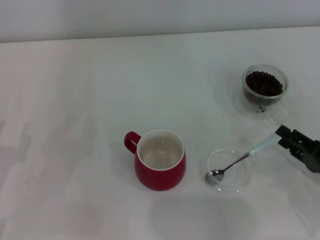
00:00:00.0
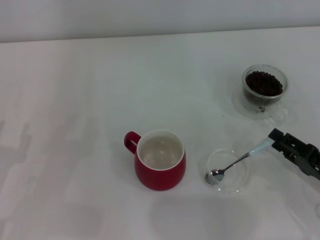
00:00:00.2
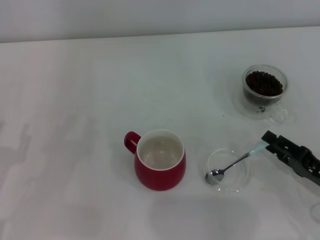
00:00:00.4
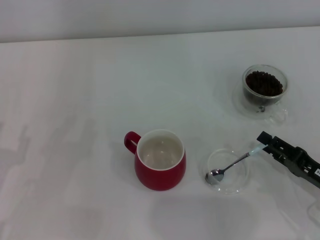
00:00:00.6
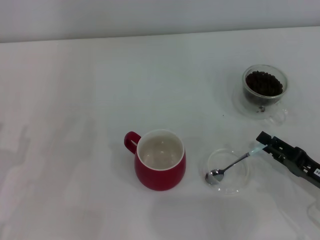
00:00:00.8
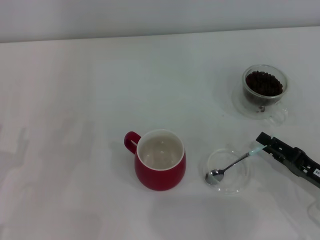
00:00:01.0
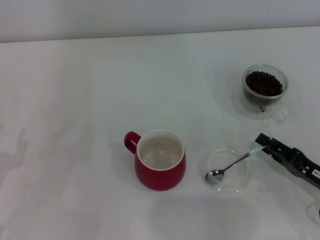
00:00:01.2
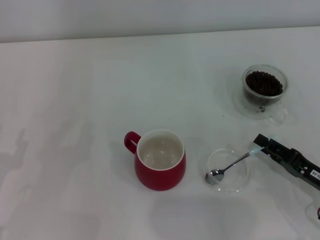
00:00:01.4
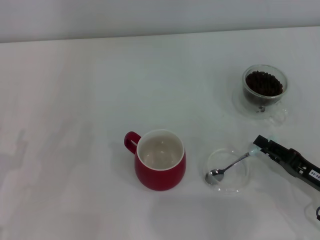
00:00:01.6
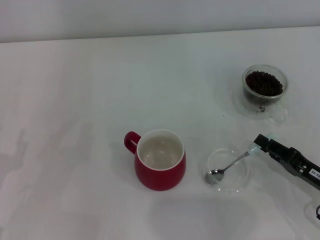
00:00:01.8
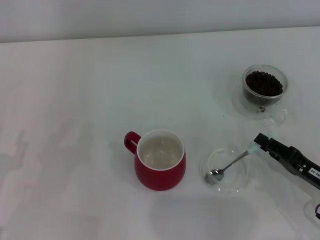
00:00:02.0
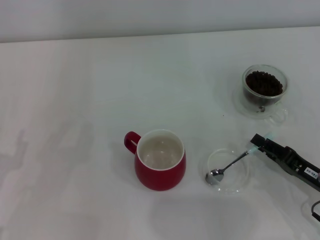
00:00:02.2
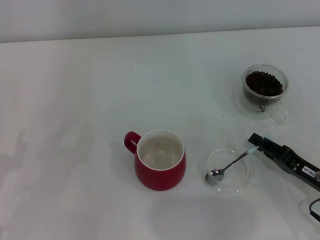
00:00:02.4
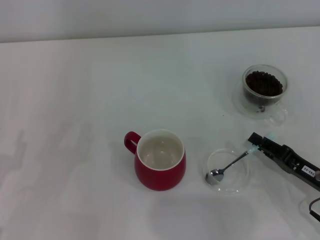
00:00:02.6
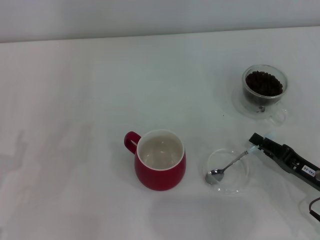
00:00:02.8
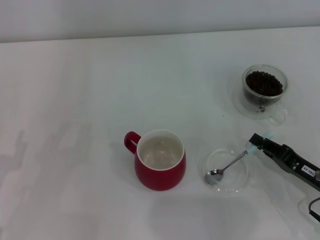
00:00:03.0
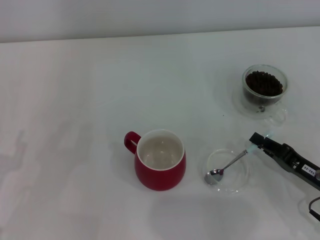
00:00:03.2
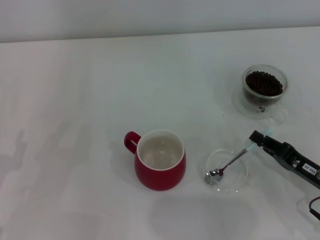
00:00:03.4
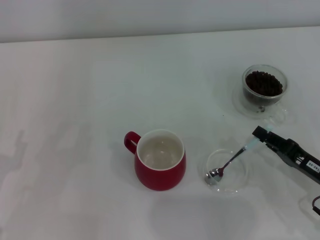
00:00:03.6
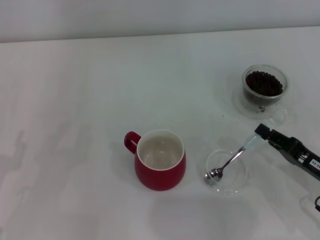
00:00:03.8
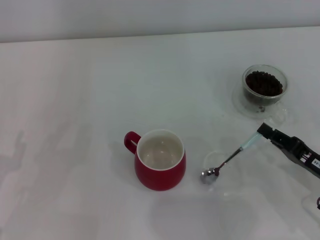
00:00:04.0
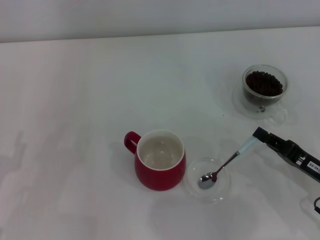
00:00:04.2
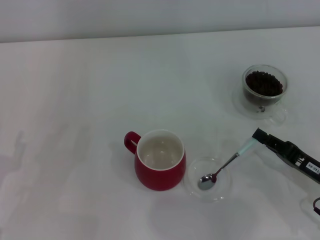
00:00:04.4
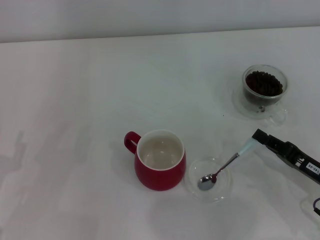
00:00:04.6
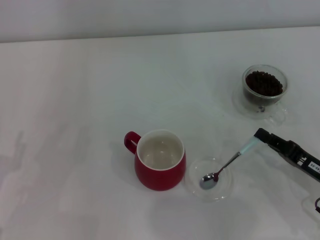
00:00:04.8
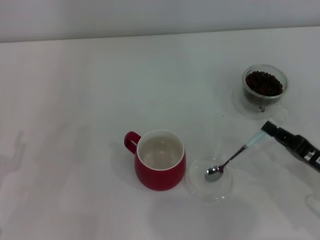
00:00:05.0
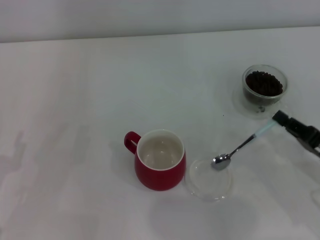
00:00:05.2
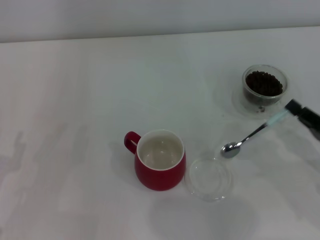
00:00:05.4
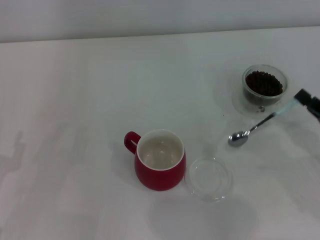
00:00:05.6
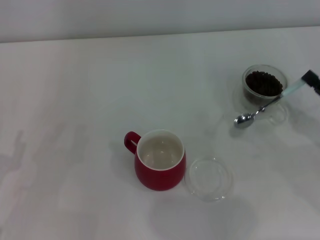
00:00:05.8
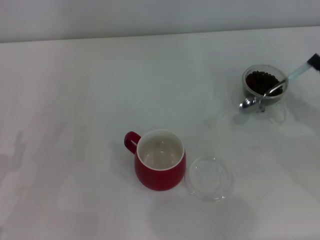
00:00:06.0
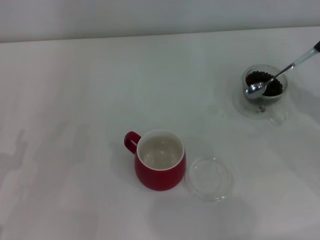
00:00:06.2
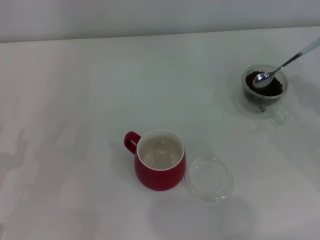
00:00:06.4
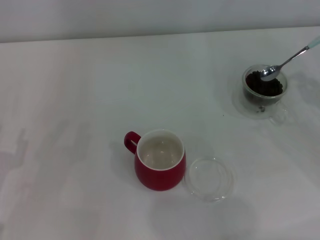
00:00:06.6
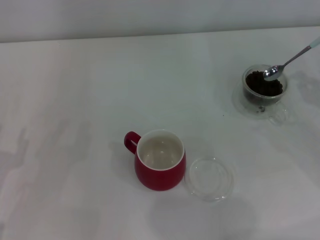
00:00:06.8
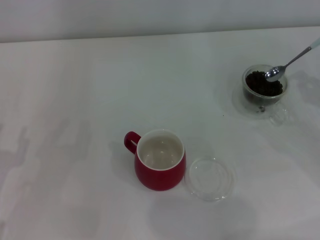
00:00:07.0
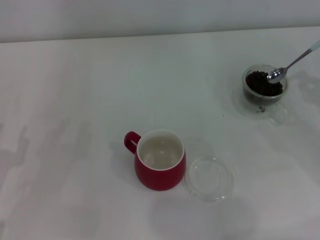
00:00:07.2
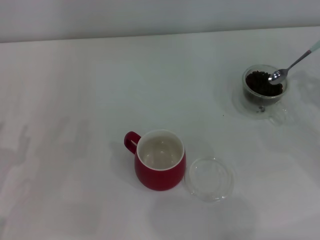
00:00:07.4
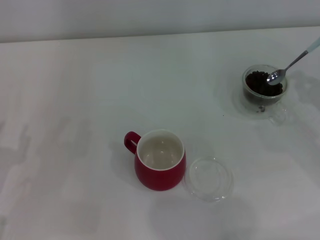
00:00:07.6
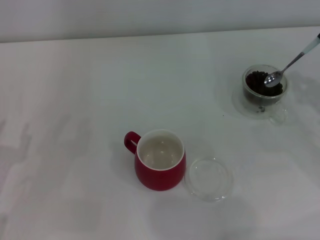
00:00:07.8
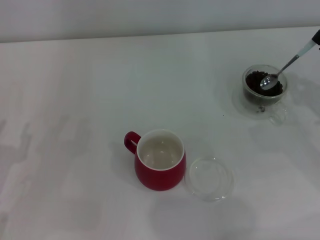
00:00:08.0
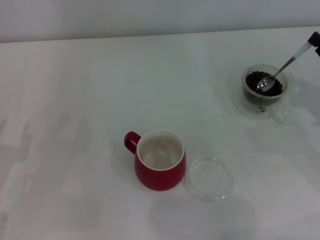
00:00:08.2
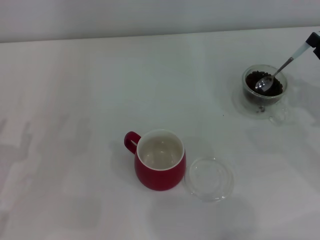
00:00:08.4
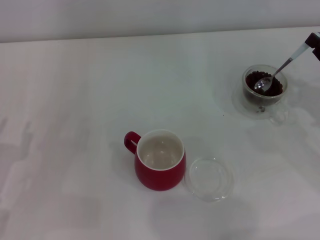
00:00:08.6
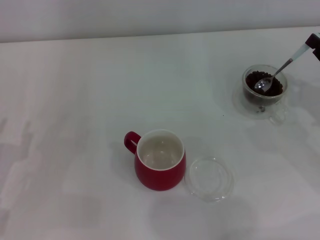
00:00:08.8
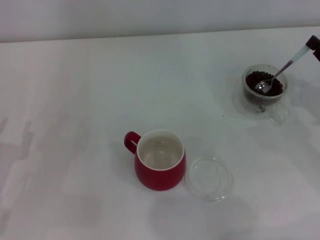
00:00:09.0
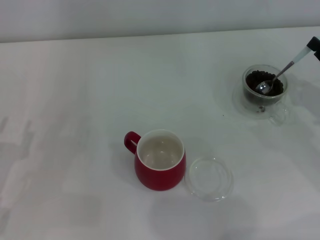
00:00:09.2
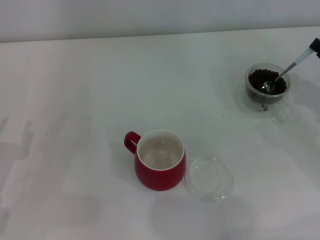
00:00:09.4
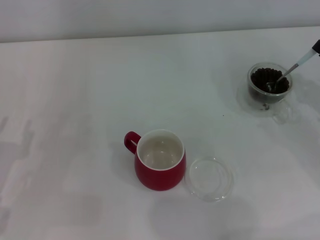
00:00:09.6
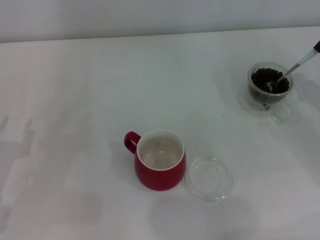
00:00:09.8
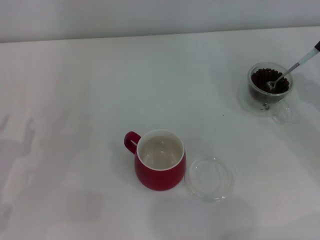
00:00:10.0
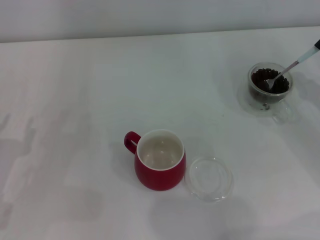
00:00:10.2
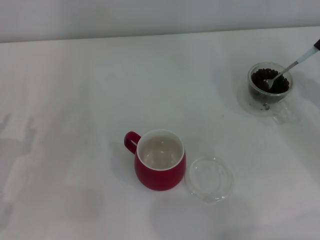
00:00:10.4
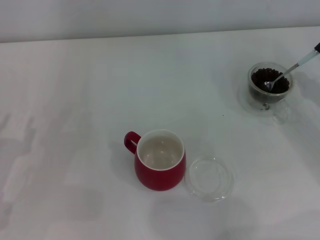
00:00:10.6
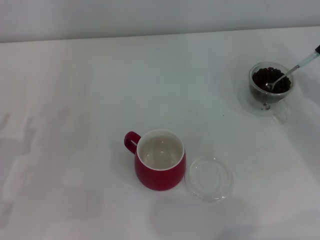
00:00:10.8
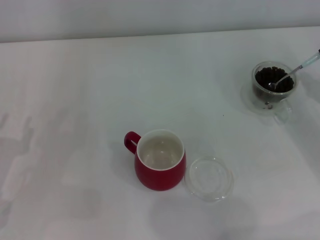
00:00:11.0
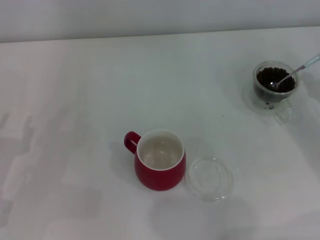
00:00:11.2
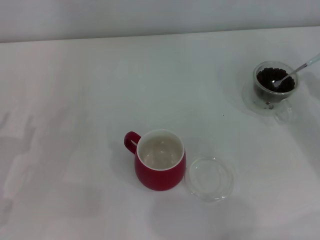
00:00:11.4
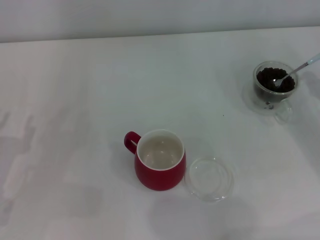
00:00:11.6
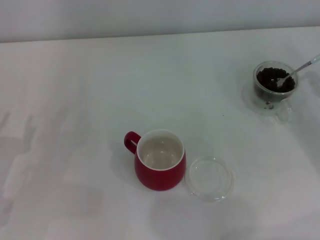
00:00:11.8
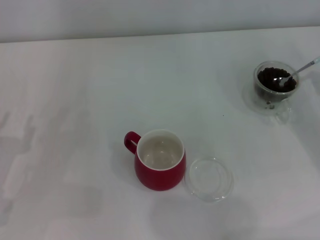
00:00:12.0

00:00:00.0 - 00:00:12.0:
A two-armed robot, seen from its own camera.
Task of the whole recording: Use a blue spoon to take out the coffee beans from the glass and pour them into the red cup.
Step, 00:00:00.0 - 00:00:05.4: Pick up the spoon with the right gripper.
00:00:00.0 - 00:00:01.6: The grippers stay close to where they were, moving slightly.
00:00:01.6 - 00:00:03.0: The right gripper closes.
00:00:03.0 - 00:00:04.4: The grippers move only a little.
00:00:04.4 - 00:00:06.0: The right gripper is displaced to the right, upward and forward by about 10 cm.
00:00:10.4 - 00:00:12.0: There are only small adjustments of the grippers.

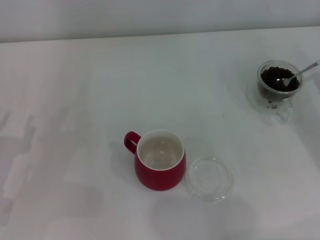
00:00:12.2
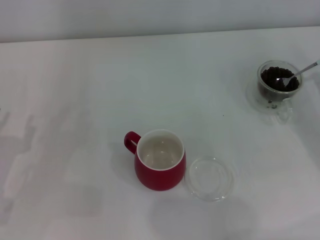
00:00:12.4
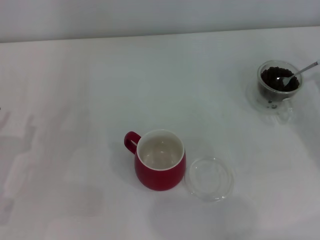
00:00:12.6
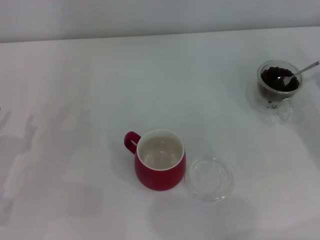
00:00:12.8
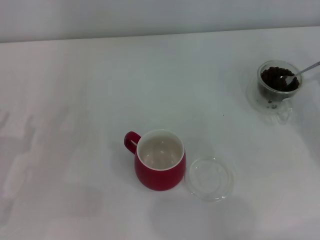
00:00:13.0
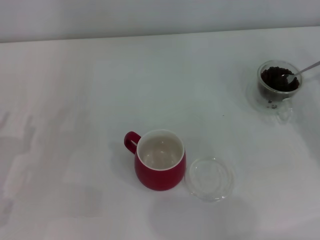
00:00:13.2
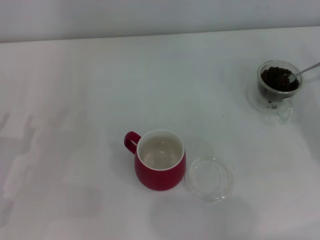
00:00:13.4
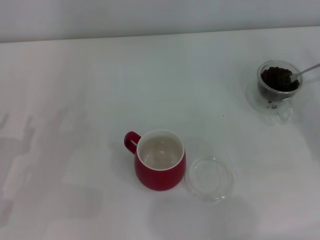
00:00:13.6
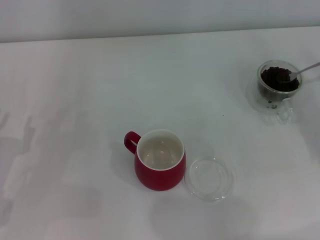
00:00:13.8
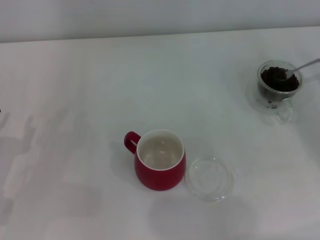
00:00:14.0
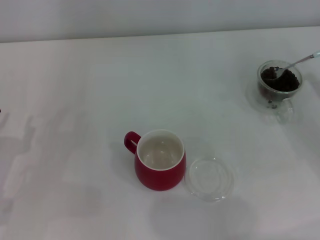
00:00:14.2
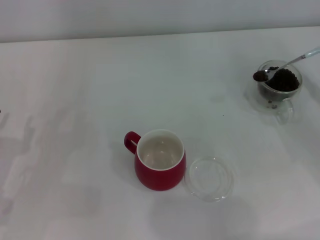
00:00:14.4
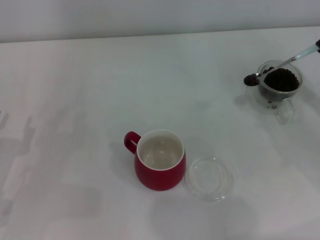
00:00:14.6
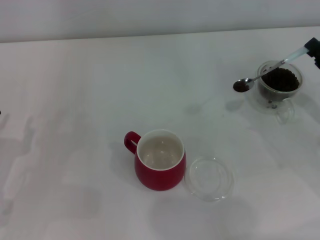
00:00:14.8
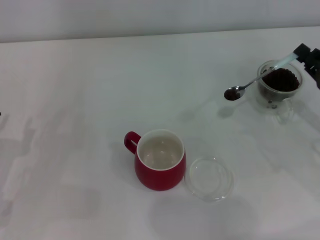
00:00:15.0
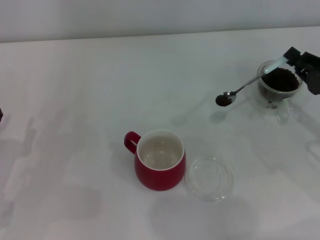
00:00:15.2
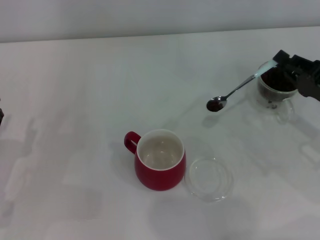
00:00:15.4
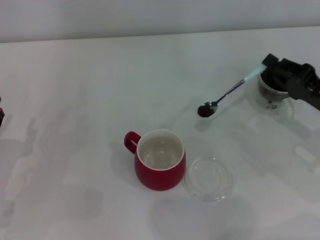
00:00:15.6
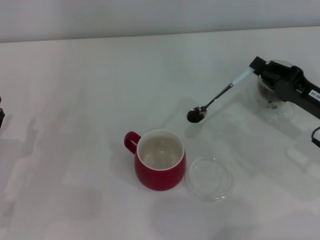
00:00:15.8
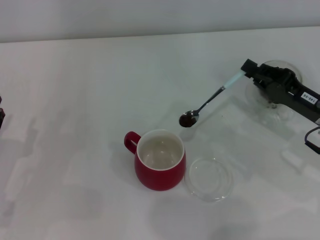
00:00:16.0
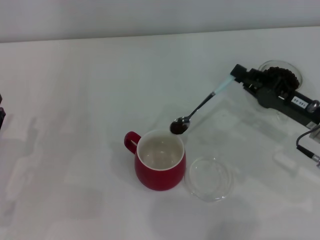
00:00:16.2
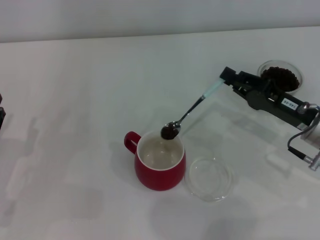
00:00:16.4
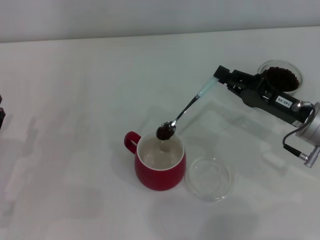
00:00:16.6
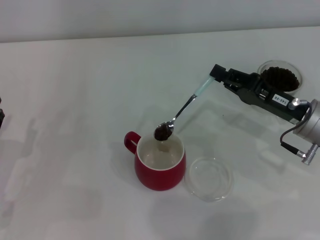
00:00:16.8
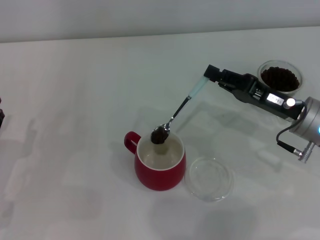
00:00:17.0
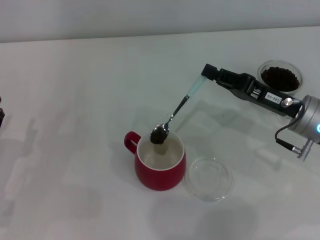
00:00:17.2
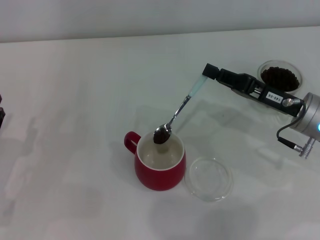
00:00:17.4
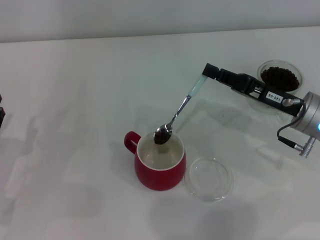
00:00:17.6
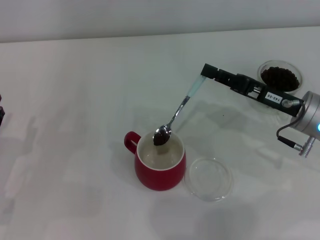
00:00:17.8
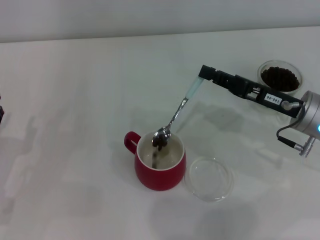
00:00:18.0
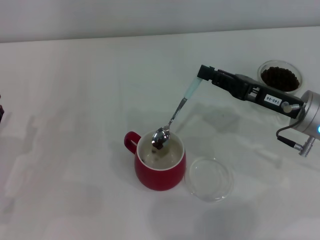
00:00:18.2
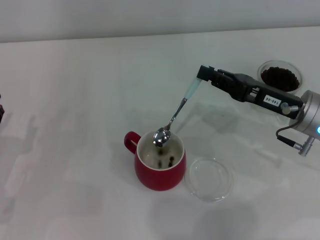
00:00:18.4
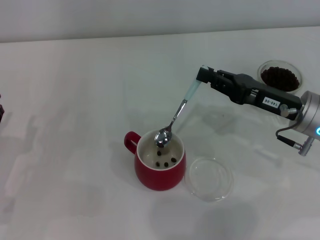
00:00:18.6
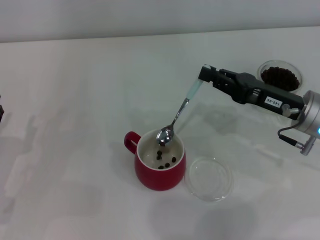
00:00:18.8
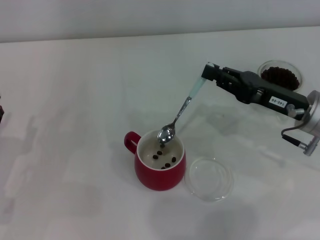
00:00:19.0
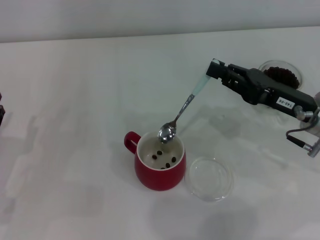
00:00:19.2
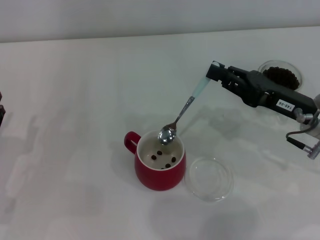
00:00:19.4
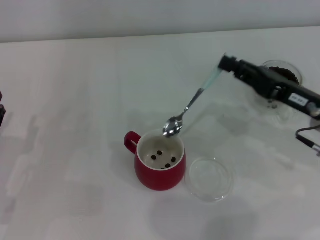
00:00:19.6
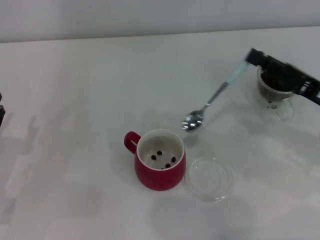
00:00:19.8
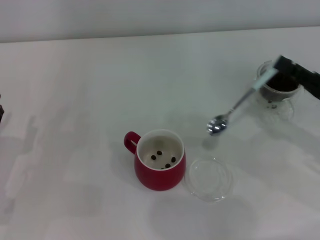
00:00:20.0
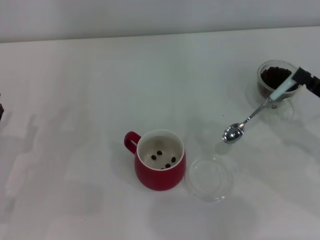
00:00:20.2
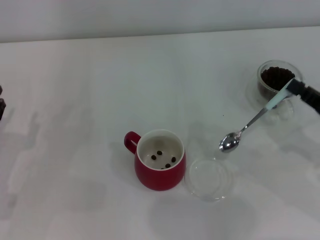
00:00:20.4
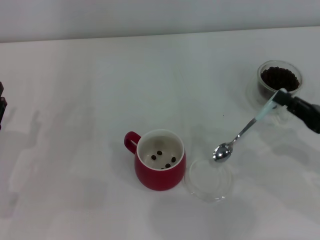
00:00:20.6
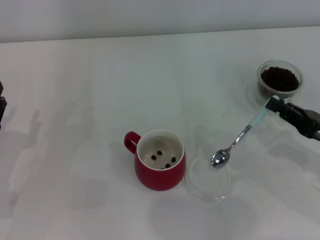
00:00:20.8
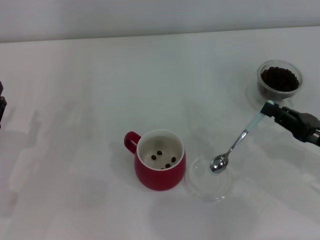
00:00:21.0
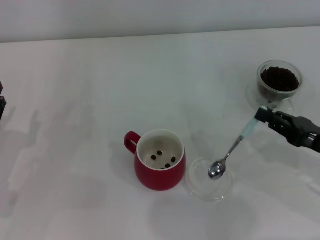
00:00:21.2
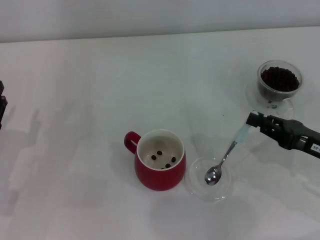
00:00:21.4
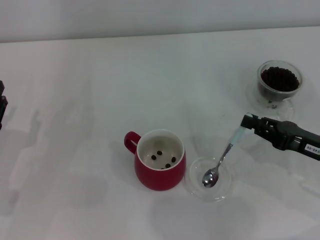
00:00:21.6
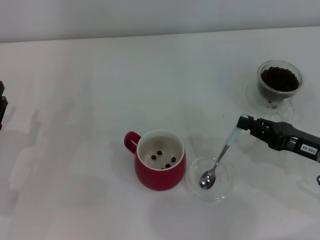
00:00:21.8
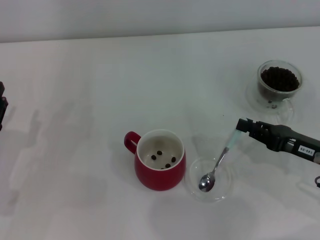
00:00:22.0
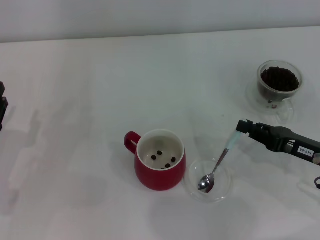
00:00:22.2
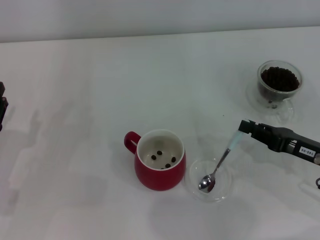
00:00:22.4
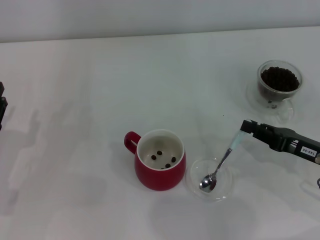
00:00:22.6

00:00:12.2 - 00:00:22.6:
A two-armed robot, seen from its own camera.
Task of the whole recording: Use a blue spoon to take out the coffee beans from the glass and pour them into the red cup.
Step, 00:00:12.2 - 00:00:19.4: Scoop a spoonful of beans into the cup with the right gripper.
00:00:13.6 - 00:00:15.2: The right gripper goes roughly 5 cm to the left.
00:00:15.2 - 00:00:16.6: The right gripper heads to the left, covering about 10 cm.
00:00:18.2 - 00:00:19.6: The grippers stay close to where they were, moving slightly.
00:00:19.6 - 00:00:21.2: The right gripper is displaced backward by approximately 5 cm.
00:00:21.2 - 00:00:22.6: The grippers stay close to where they were, moving slightly.
